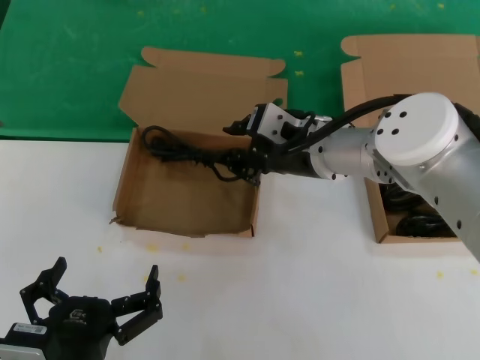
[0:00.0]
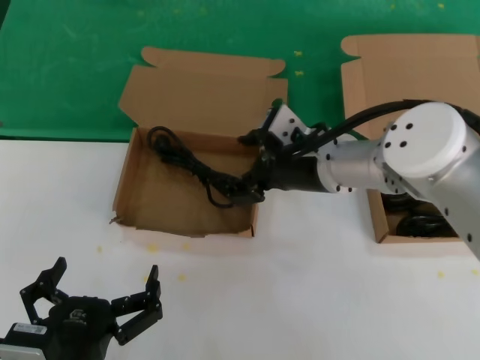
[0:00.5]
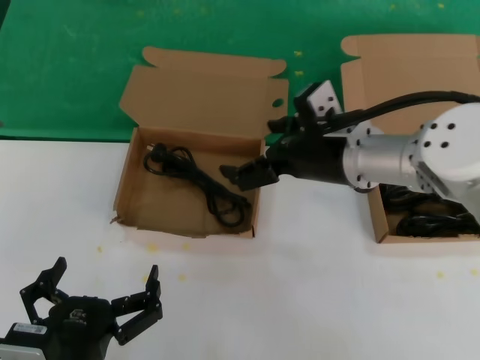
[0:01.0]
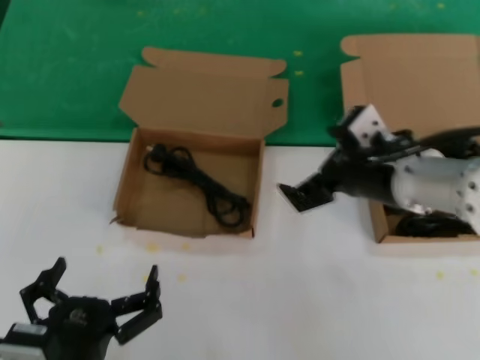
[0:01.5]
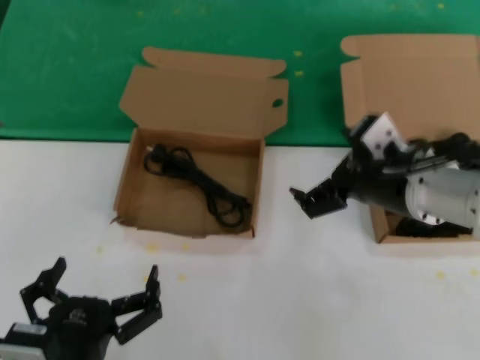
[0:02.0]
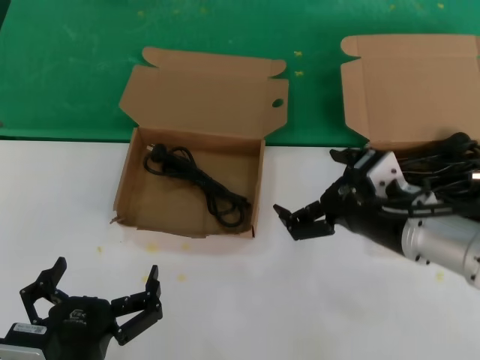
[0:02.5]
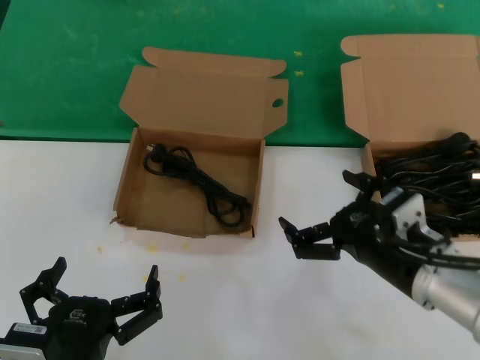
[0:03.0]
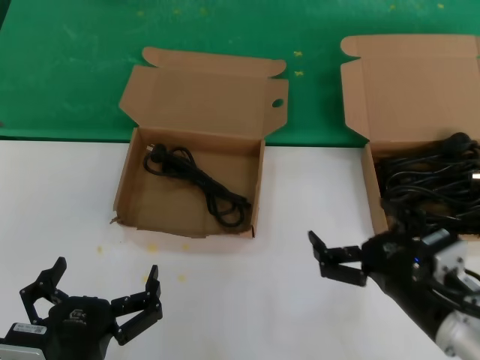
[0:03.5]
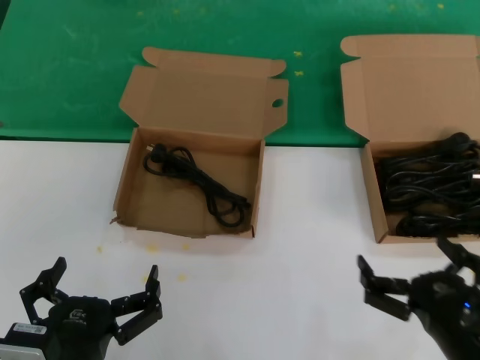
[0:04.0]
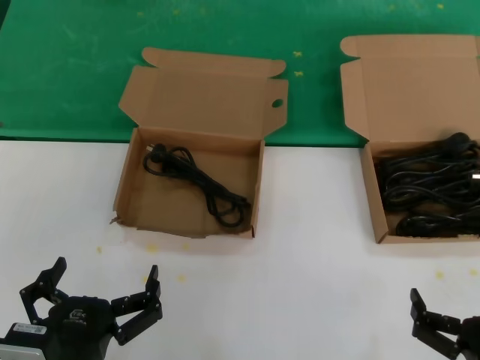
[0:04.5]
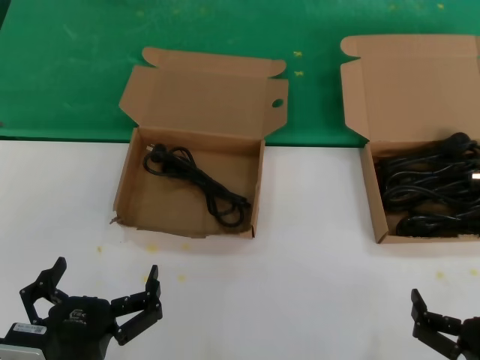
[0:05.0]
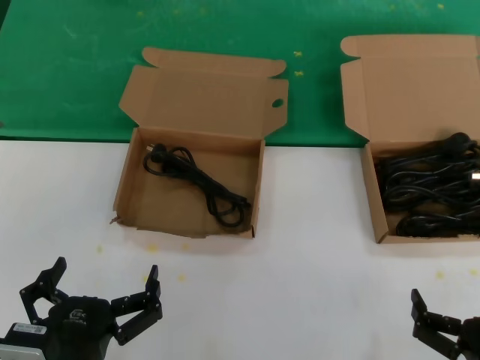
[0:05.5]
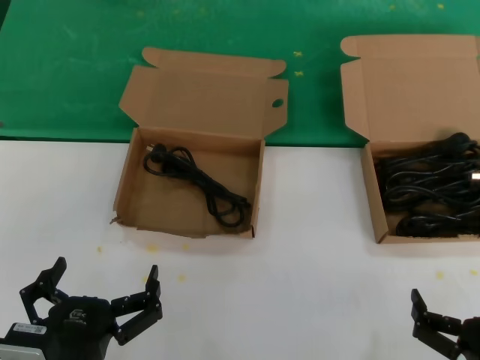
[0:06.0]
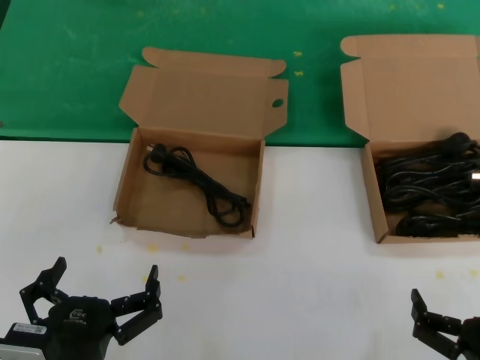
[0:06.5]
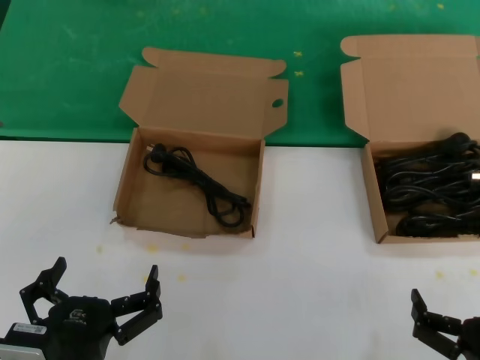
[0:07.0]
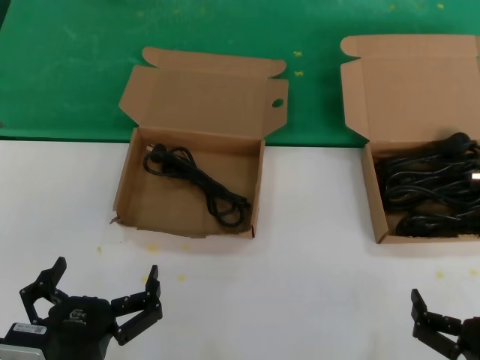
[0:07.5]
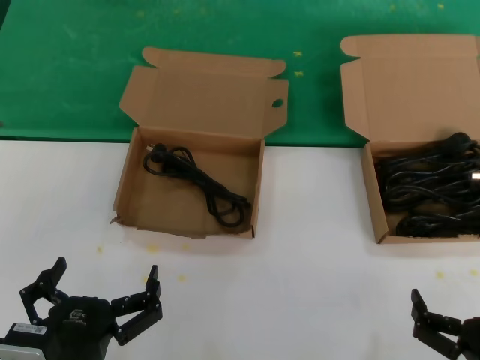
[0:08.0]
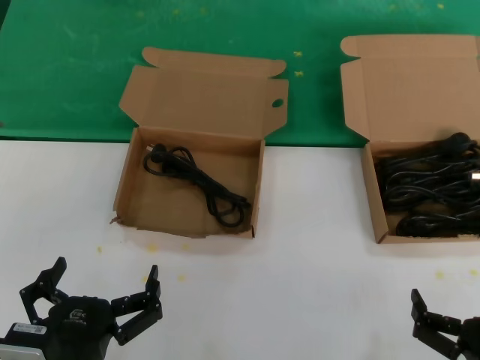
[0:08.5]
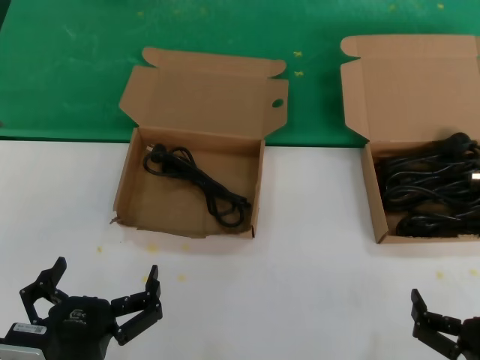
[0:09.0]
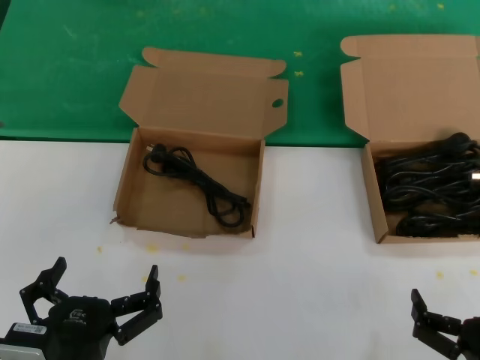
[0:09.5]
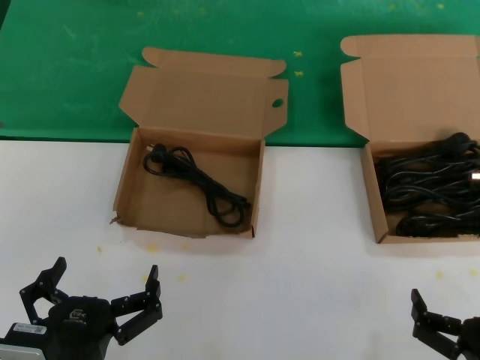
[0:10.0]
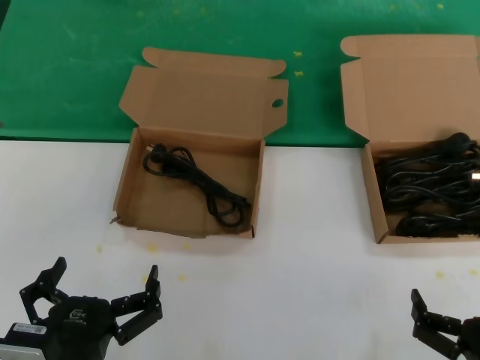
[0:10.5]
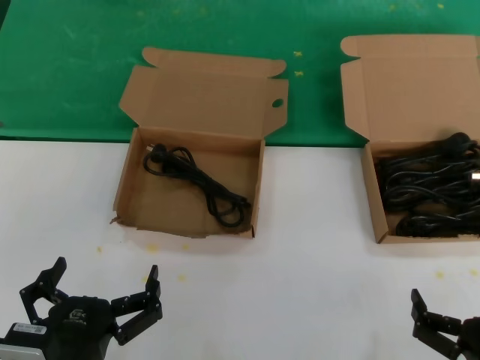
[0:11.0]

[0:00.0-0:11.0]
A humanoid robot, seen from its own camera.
Task of the whole recording: take the parts from the box containing them and put them into an empty box.
0:00.0 to 0:02.0: The right hand heads to the right and backward, covering some 10 cm.
0:02.0 to 0:03.5: The right hand shifts some 15 cm downward and backward.
0:03.5 to 0:05.5: The right hand travels backward, downward and to the right by about 15 cm.
0:05.5 to 0:11.0: Both hands stay put.
